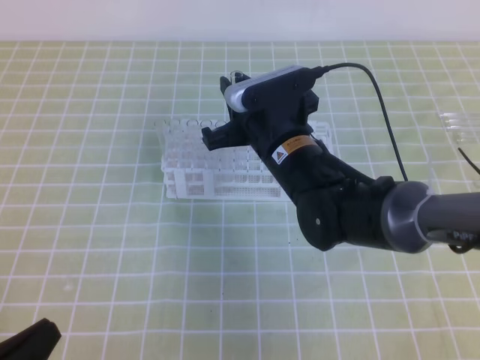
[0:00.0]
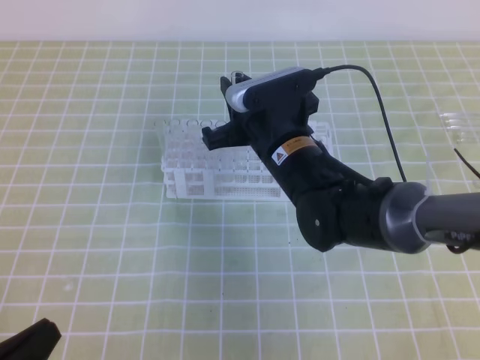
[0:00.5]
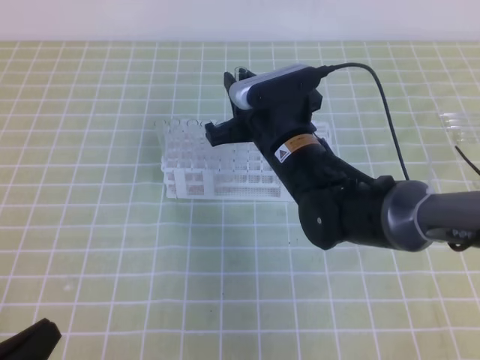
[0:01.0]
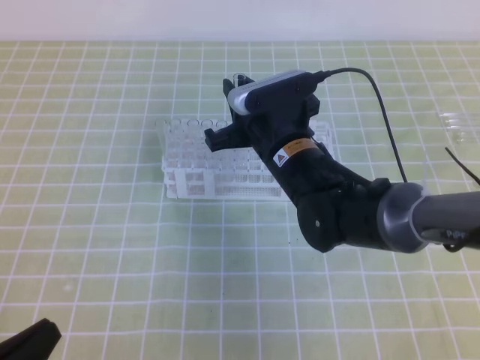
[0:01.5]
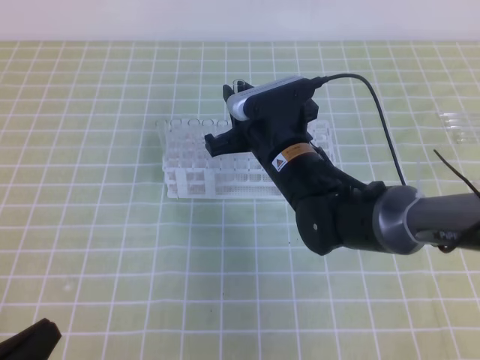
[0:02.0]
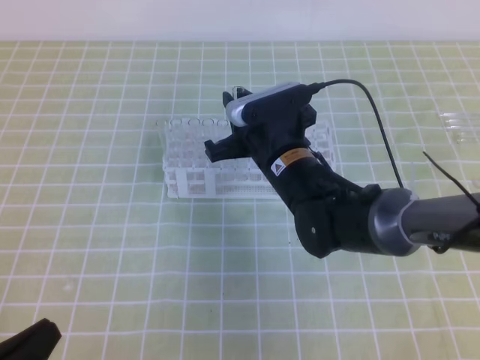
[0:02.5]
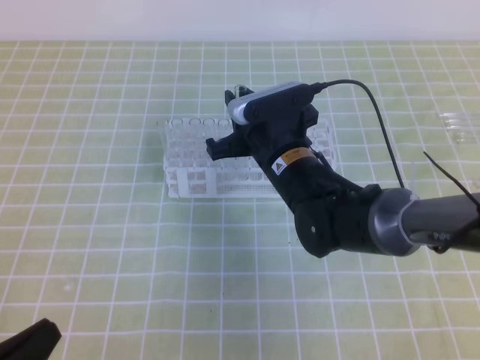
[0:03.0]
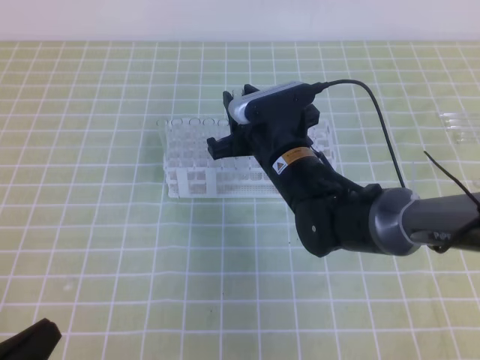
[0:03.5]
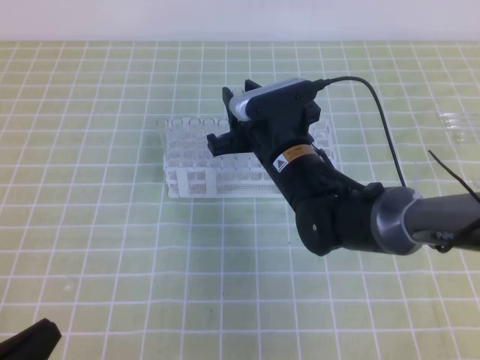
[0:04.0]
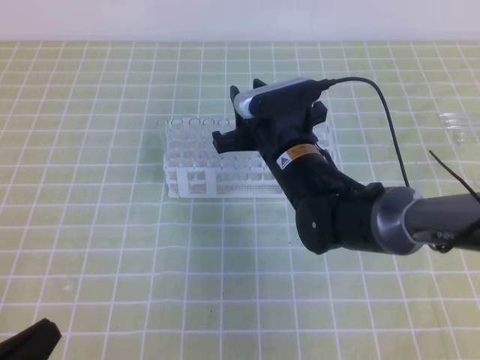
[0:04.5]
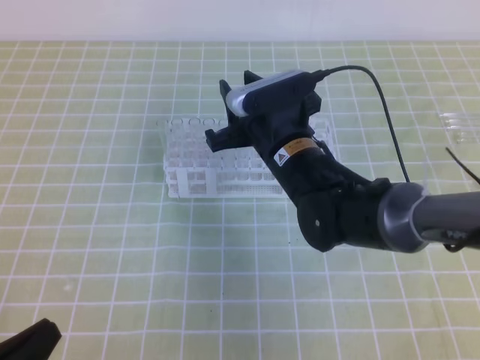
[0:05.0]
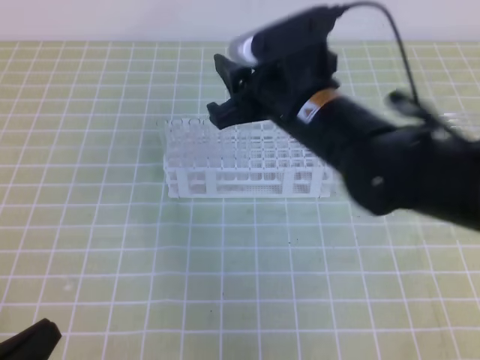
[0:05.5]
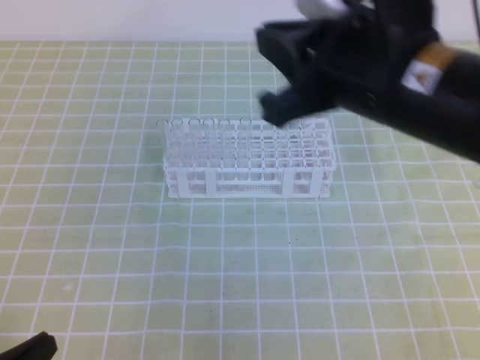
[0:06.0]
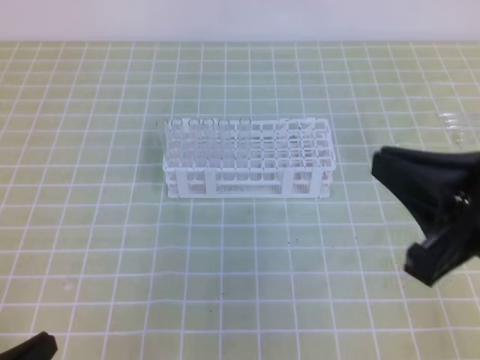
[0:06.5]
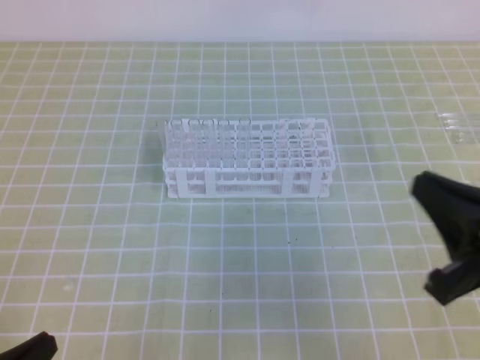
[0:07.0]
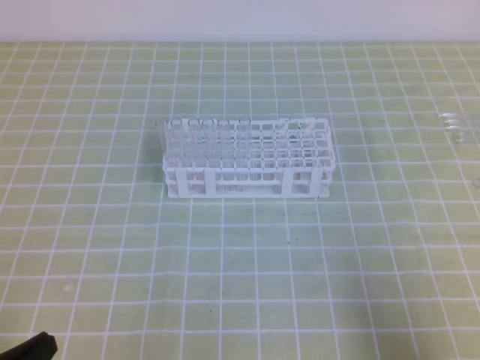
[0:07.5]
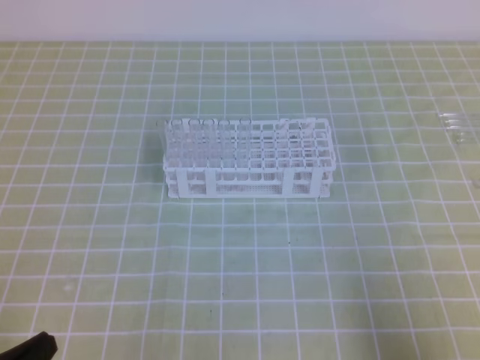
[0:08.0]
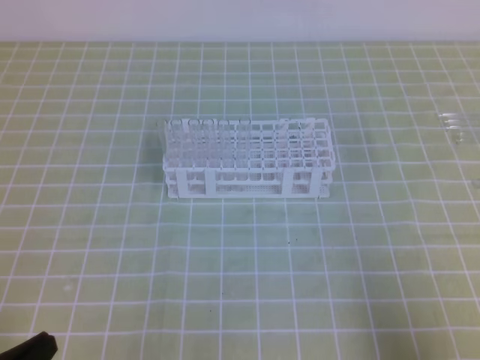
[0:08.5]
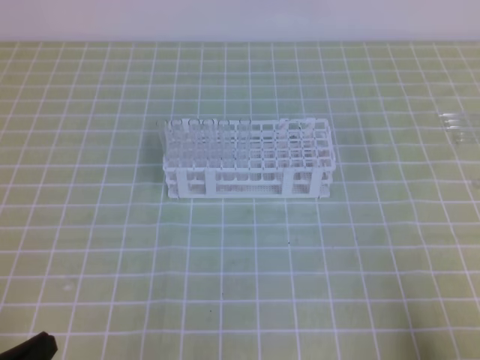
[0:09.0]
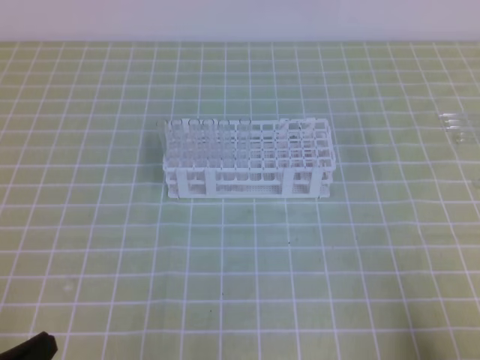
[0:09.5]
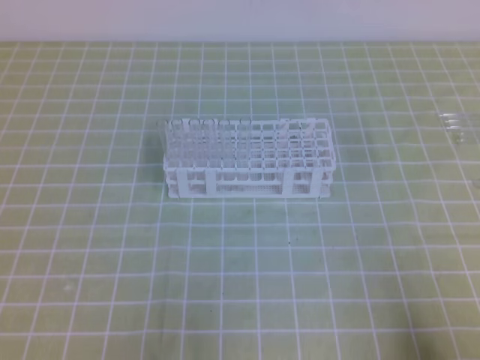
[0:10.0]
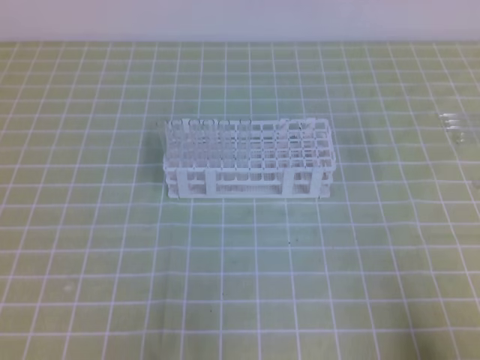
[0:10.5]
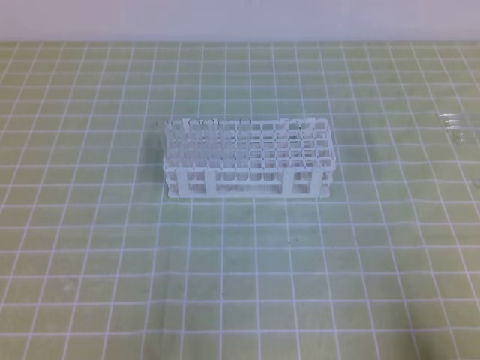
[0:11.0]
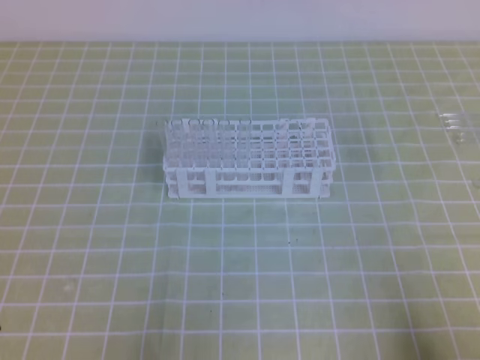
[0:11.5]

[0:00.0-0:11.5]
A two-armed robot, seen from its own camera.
0:00.0 to 0:02.0: Neither gripper changes place.
0:02.0 to 0:04.0: The right gripper opens up.
0:04.0 to 0:06.0: The right gripper moves upward, backward and to the right, approximately 20 cm, and closes its fingers.
0:06.0 to 0:07.5: The right gripper is displaced to the right, backward and downward by some 30 cm.
0:07.5 to 0:09.5: The right gripper heads downward, covering roughly 5 cm.
